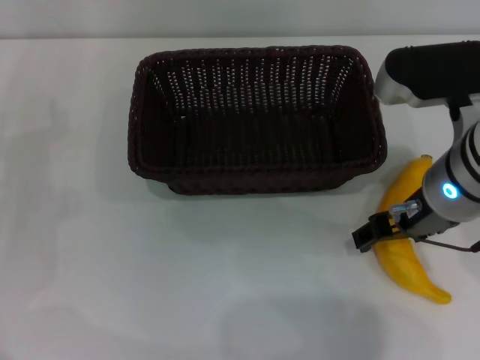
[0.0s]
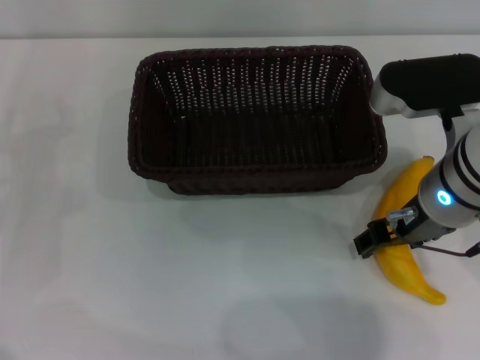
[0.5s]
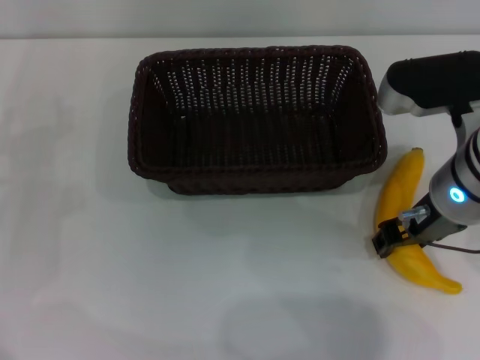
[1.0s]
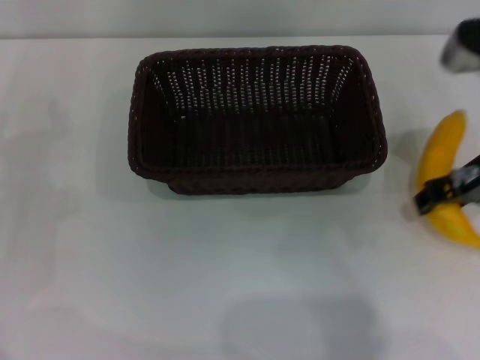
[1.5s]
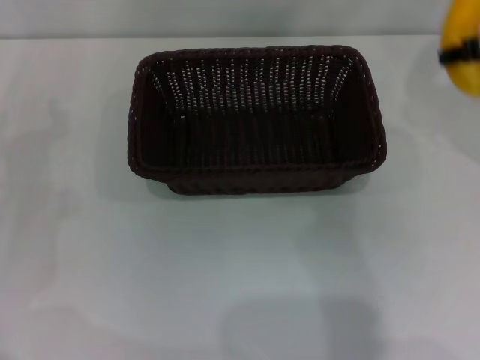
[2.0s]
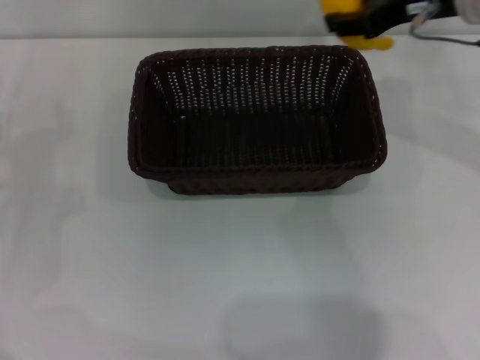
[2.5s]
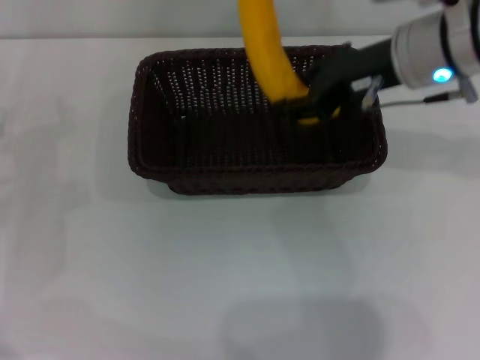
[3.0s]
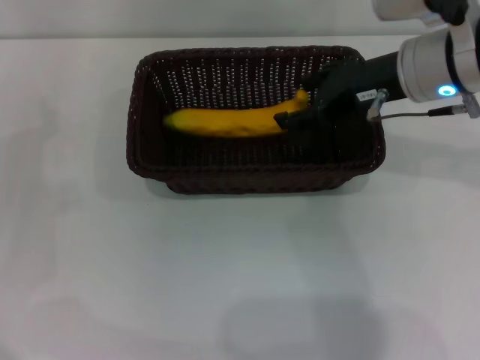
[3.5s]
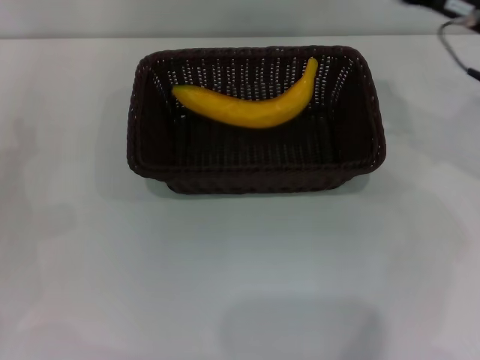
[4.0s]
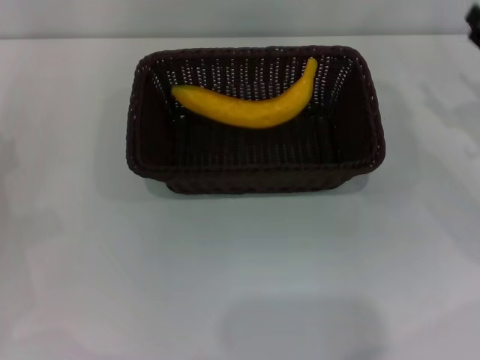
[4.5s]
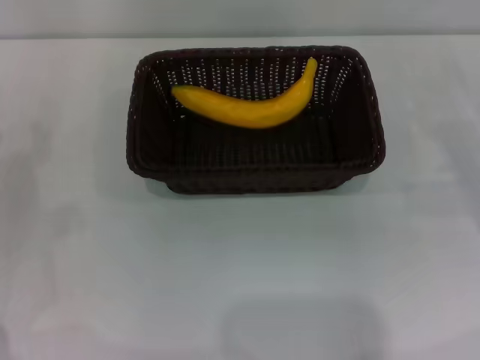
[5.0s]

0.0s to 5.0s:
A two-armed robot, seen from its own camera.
Step, 2.0s to 3.5s: Place the banana into the dark basket with the right gripper.
0.0s to 2.5s: The right gripper is displaced forward and upward by about 15 cm, and closes.
2.5s to 5.0s: The right gripper shifts some 25 cm downward and to the right, and opens its fingers.
